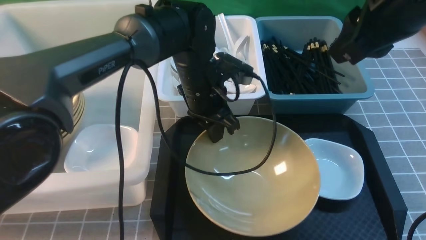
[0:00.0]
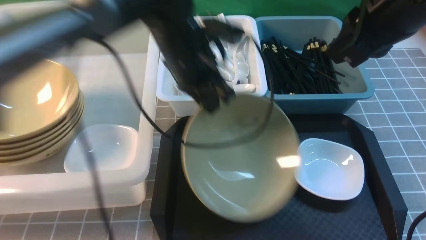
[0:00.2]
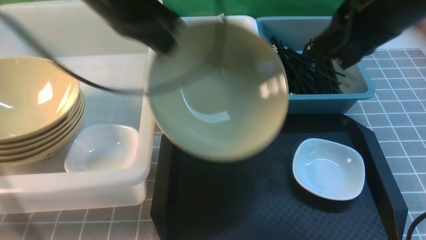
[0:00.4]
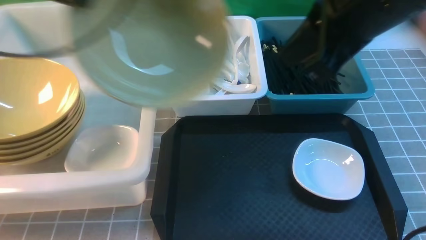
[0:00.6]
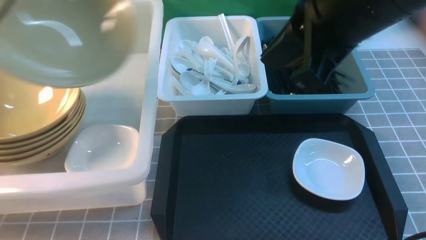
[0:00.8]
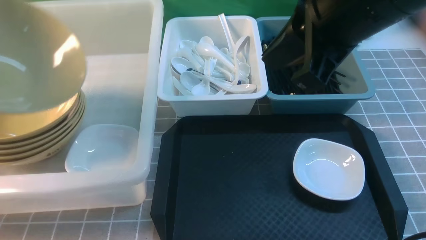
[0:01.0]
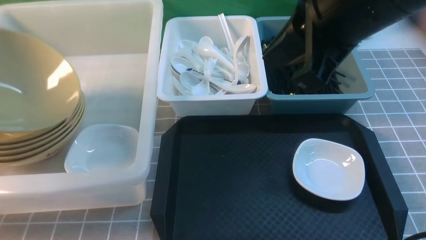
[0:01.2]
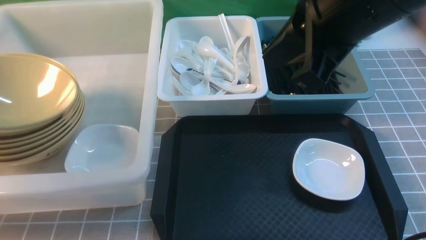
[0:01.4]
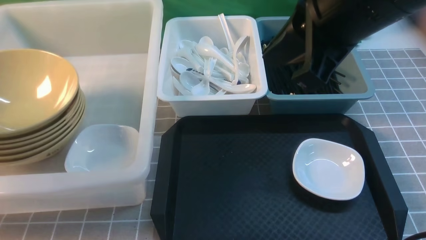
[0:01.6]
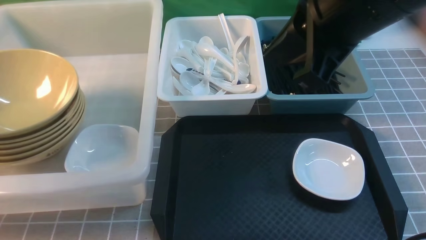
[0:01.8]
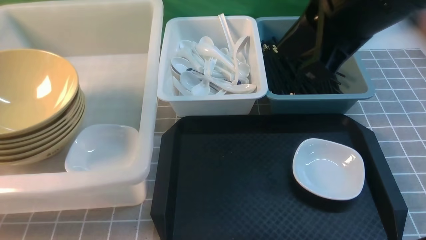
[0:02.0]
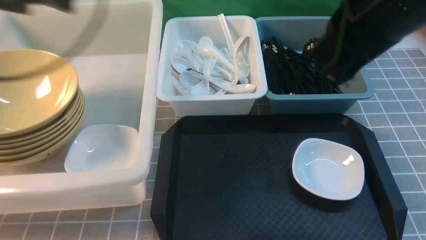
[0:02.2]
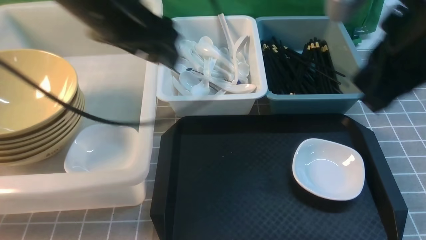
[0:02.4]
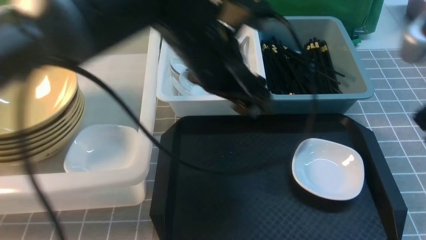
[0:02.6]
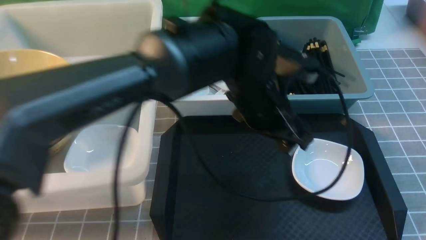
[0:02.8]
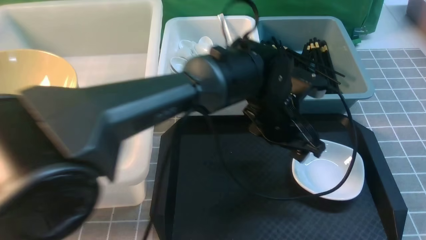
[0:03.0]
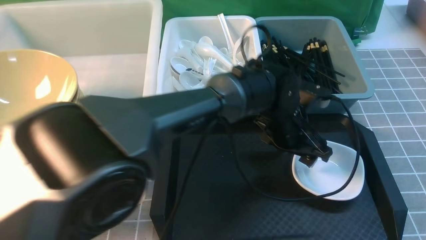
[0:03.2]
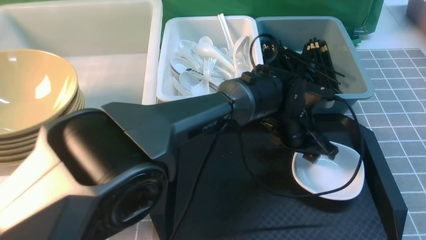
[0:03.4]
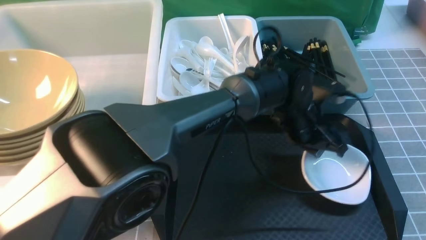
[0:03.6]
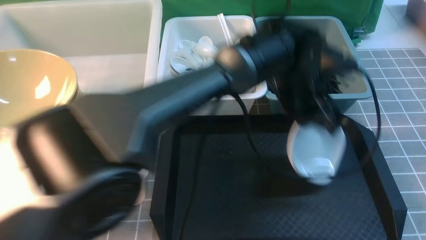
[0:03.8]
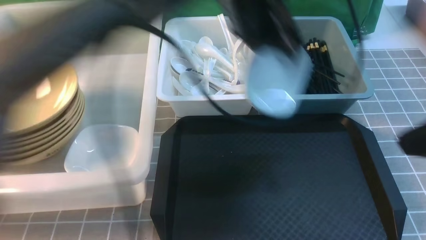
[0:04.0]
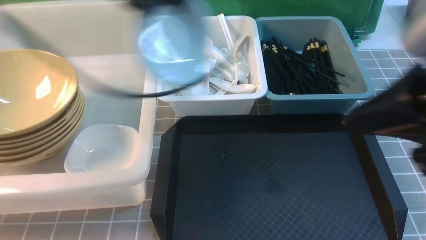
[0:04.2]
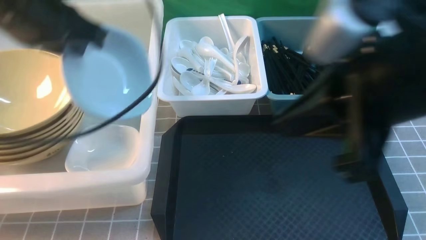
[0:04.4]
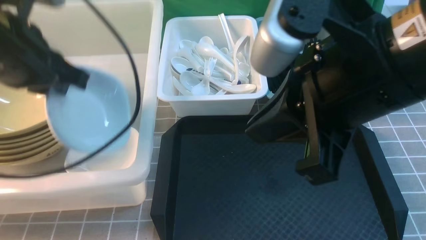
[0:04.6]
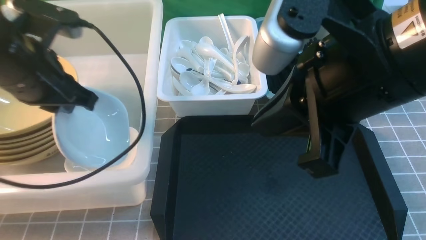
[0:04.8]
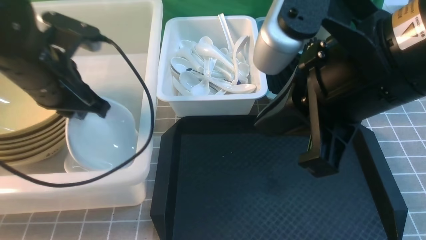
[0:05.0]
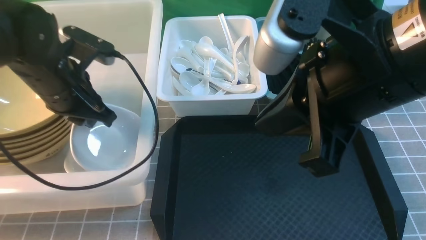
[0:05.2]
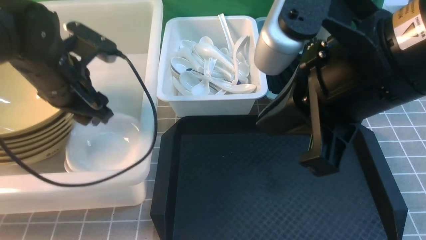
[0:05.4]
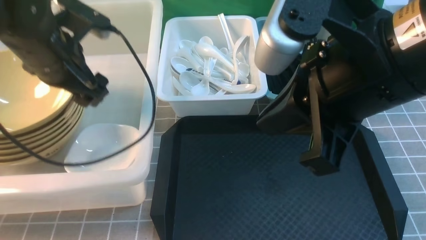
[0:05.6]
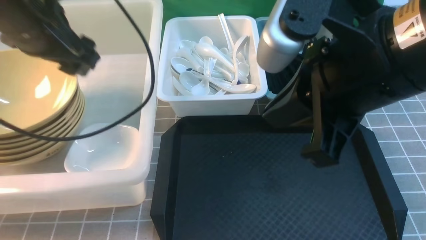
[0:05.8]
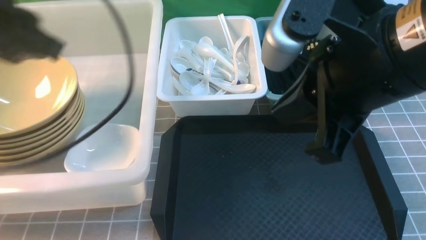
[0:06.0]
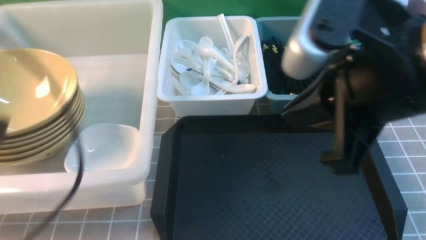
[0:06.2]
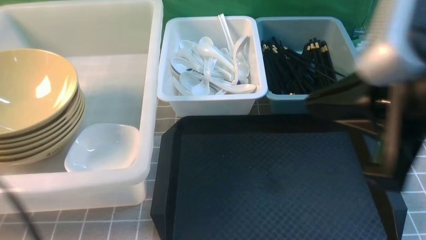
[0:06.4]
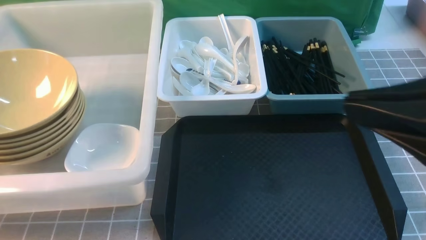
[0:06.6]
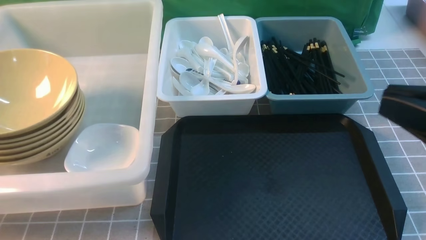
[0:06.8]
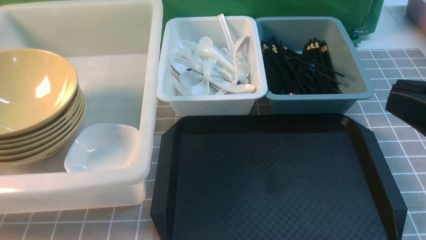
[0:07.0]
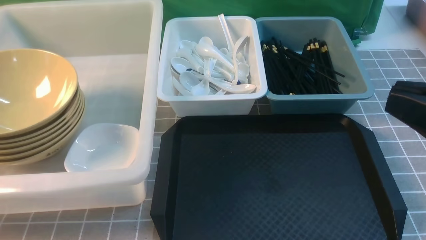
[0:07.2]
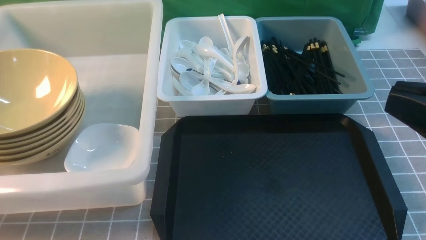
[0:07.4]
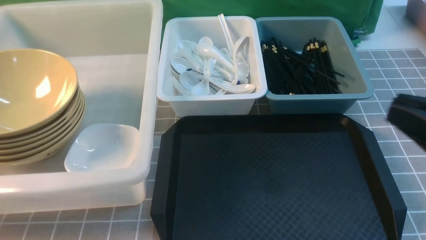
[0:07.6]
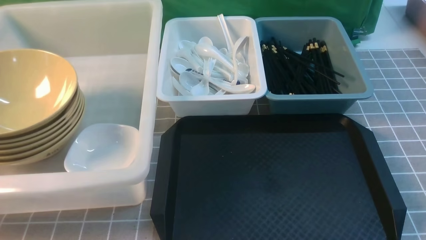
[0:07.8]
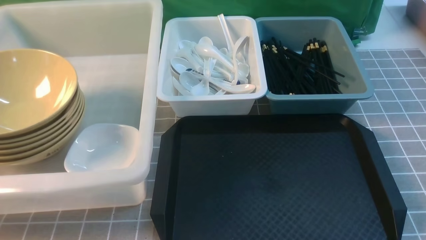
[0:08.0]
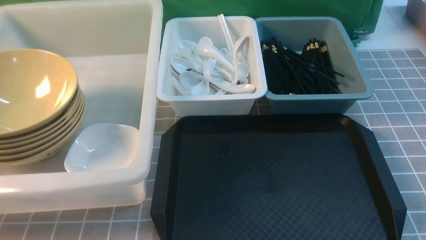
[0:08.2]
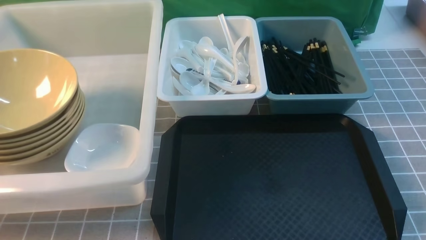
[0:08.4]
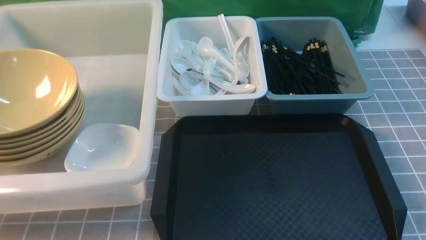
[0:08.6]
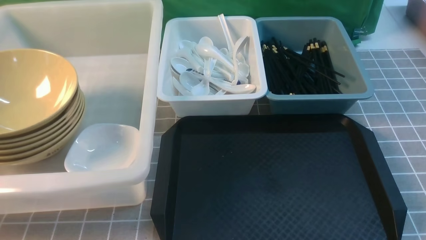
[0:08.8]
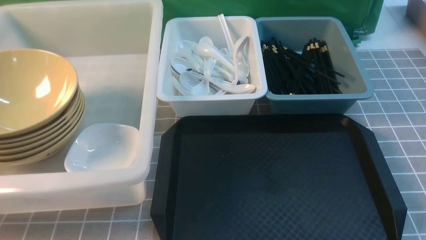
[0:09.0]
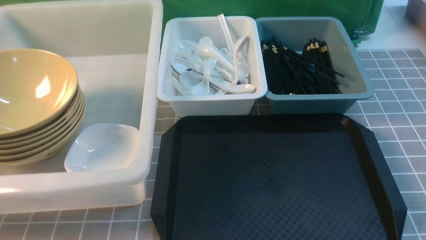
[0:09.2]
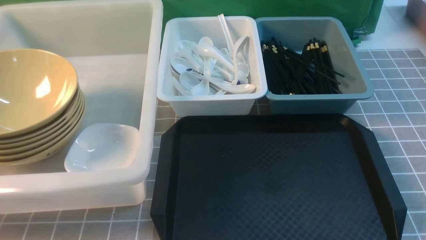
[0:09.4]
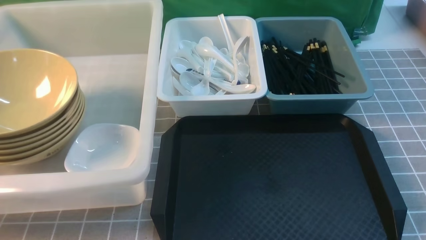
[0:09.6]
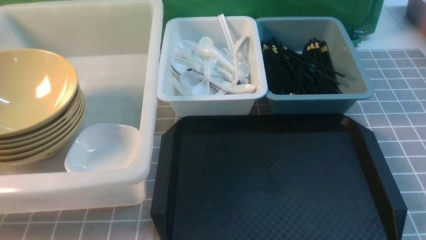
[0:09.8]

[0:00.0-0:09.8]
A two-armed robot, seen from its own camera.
Task of the whole recording: on grey table put chopsticks spoon bowls plates into blue grey white boxes.
Step, 0:00.2 to 0:01.6: use the left arm to put the noodle bowl into the large storage box on the left.
Step, 0:01.8 to 0:03.6: use the left arm to grab the plate.
Step, 0:03.8 to 0:05.4: use the left arm to put the plate into the large storage box on the left.
0:00.0 to 0:01.4: The left gripper heads to the left, covering approximately 40 cm, while the right gripper shifts about 5 cm to the left.
0:01.4 to 0:02.8: The right gripper goes approximately 20 cm to the right, backward and downward. Meanwhile the left gripper moves to the right, some 50 cm, and opens.
0:02.8 to 0:04.2: The left gripper goes roughly 25 cm to the left and upward, and closes up. Meanwhile the right gripper shifts some 10 cm to the left.
0:04.2 to 0:05.6: The right gripper travels to the left by some 5 cm. Meanwhile the left gripper moves downward and to the left, some 10 cm, and opens up.
0:05.6 to 0:07.0: The left gripper shifts some 30 cm backward, and closes its fingers, while the right gripper is displaced to the right and backward by approximately 15 cm.
0:07.0 to 0:08.4: The right gripper travels downward and to the right by roughly 20 cm.

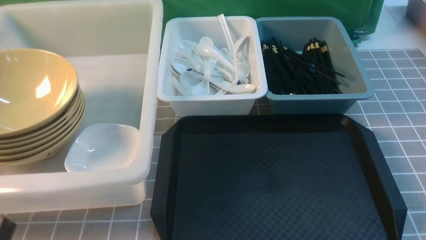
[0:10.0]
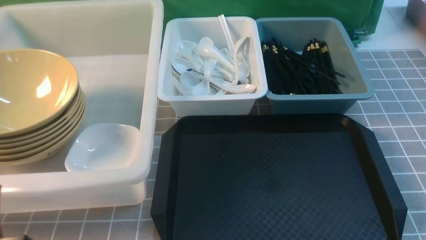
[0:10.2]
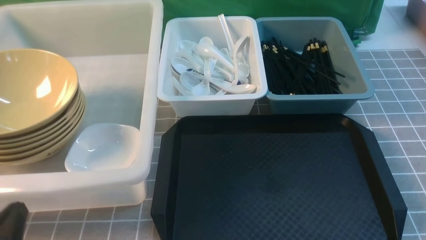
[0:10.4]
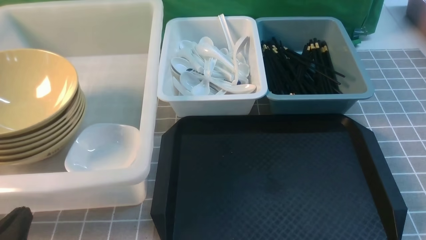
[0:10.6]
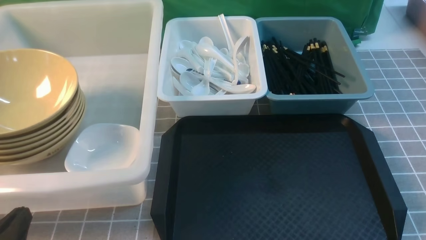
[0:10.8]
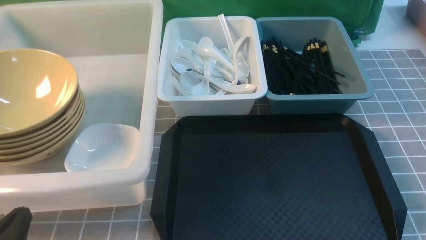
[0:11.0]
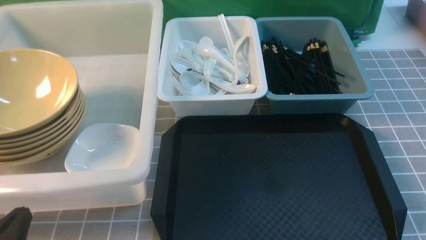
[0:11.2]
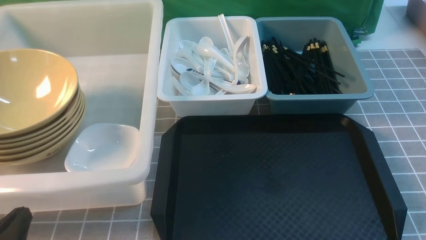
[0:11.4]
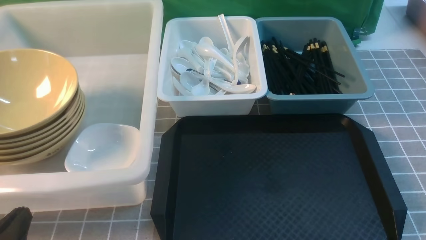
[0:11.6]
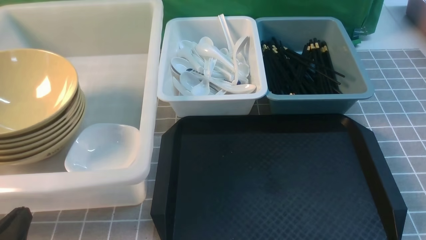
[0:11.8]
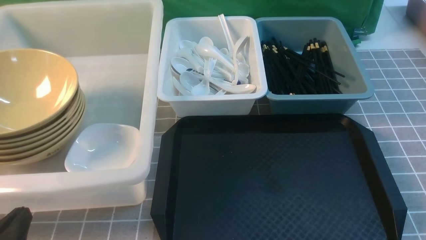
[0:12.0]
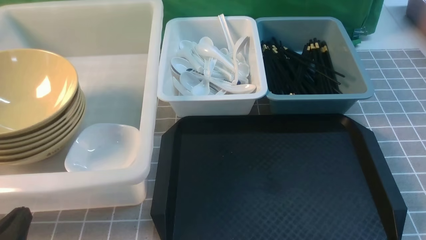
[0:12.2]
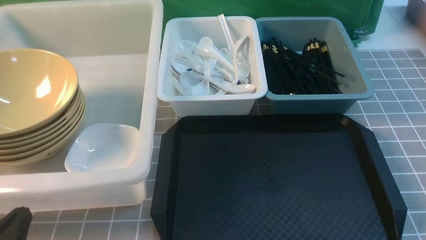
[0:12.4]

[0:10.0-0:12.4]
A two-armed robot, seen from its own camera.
Task of the whole recording: on grey table put chopsticks spoon bowls plates into blue grey white boxes.
0:11.2 to 0:12.4: Neither gripper changes place.
